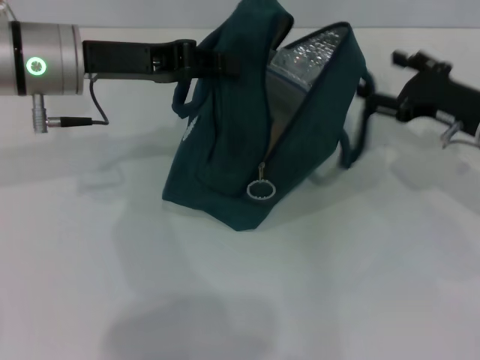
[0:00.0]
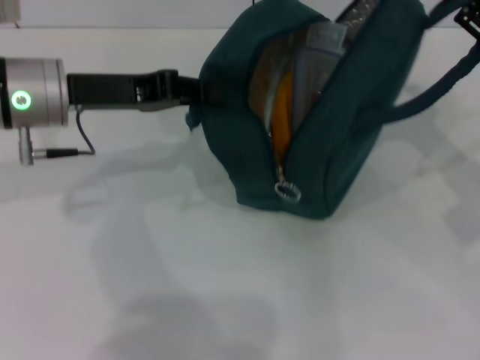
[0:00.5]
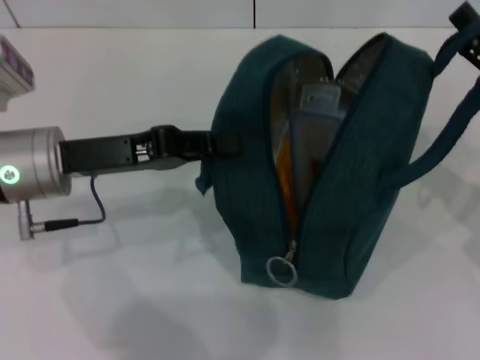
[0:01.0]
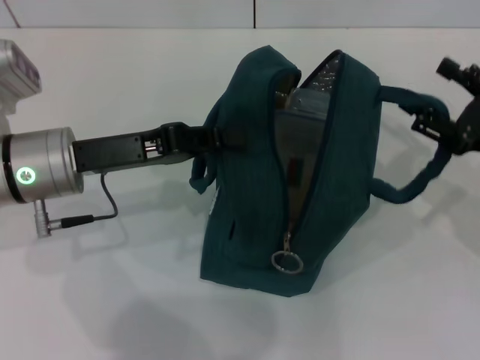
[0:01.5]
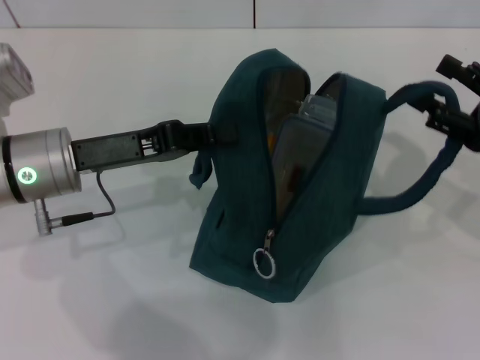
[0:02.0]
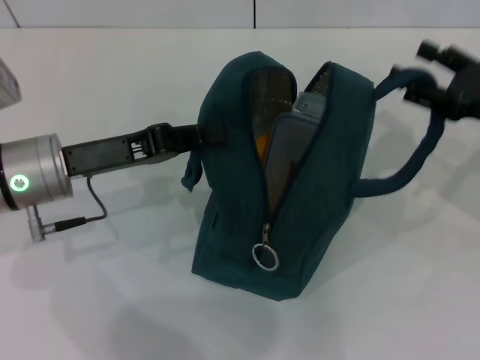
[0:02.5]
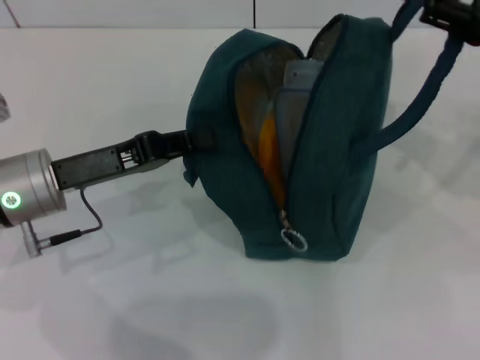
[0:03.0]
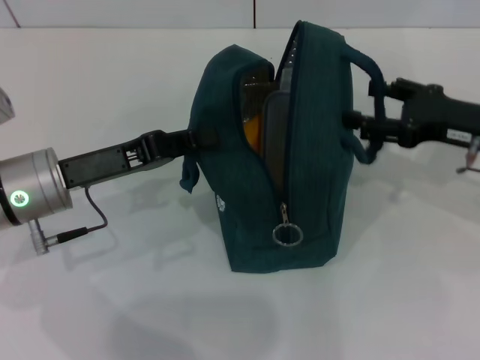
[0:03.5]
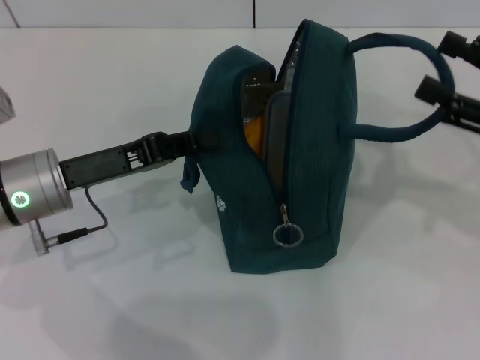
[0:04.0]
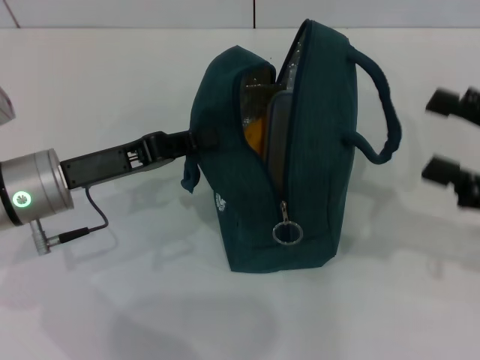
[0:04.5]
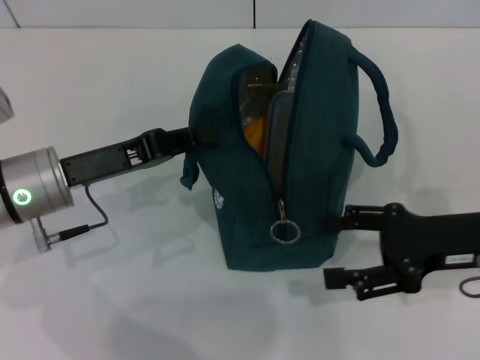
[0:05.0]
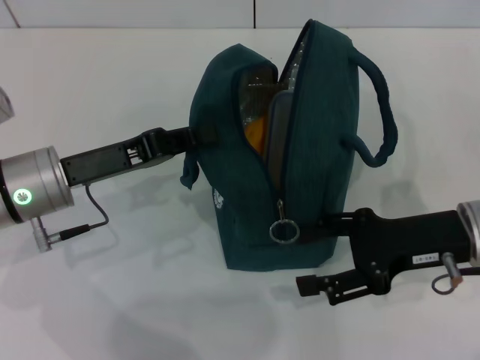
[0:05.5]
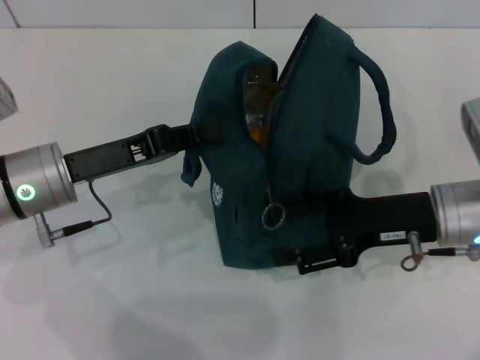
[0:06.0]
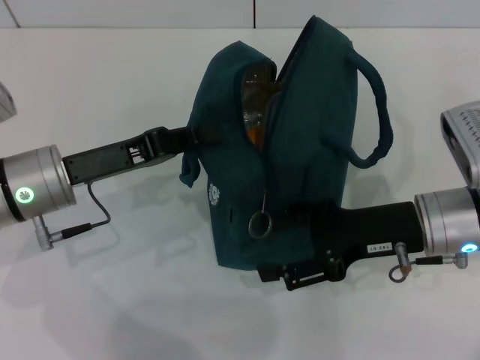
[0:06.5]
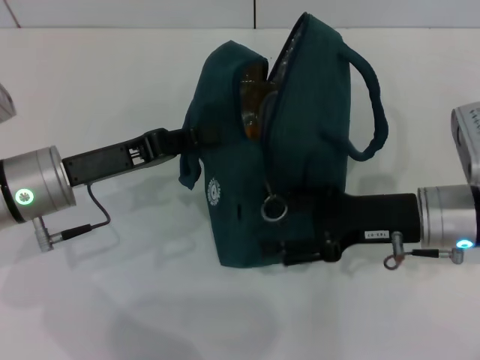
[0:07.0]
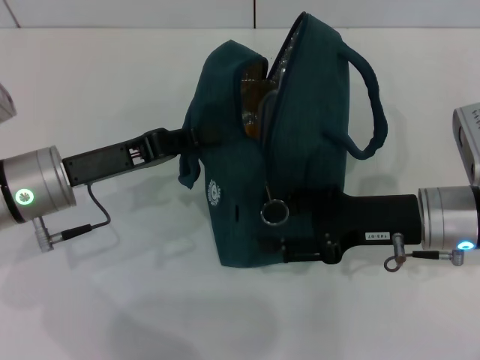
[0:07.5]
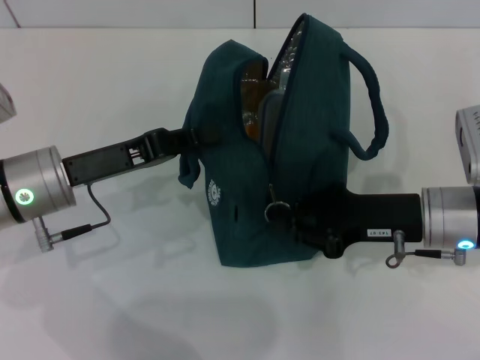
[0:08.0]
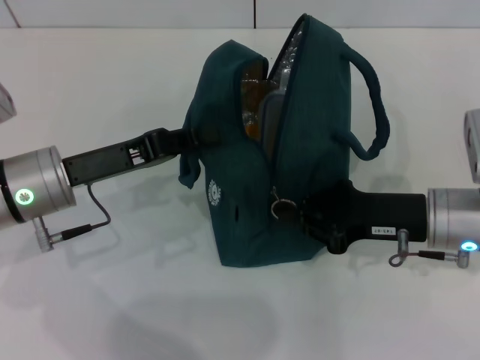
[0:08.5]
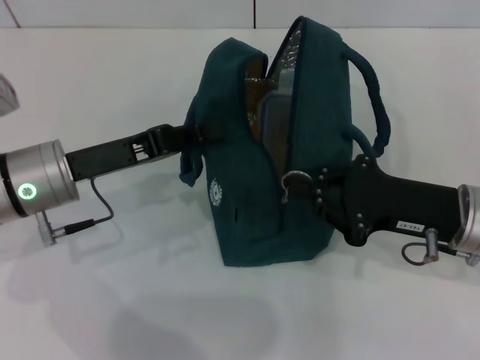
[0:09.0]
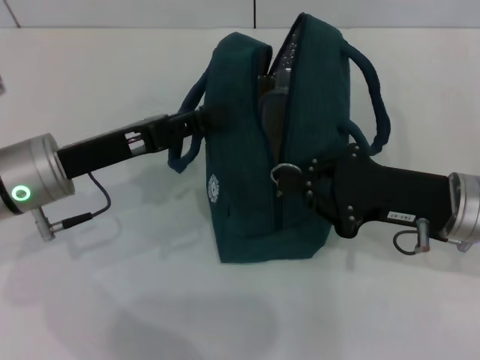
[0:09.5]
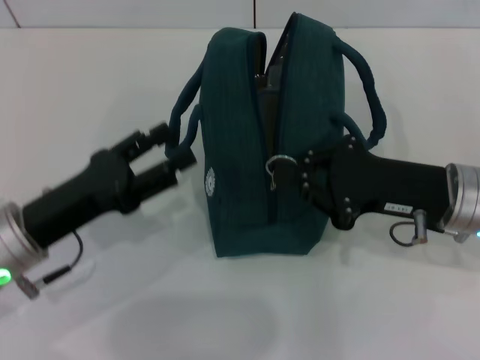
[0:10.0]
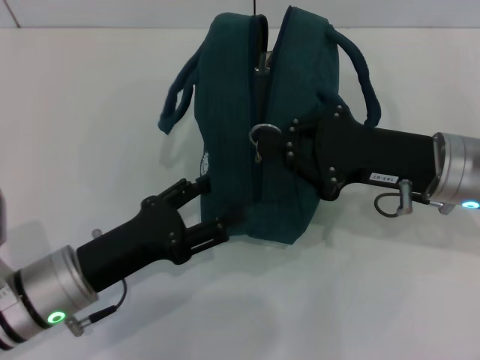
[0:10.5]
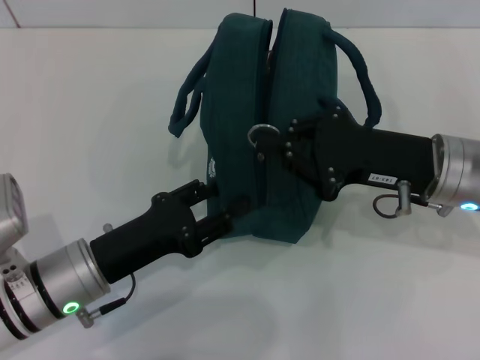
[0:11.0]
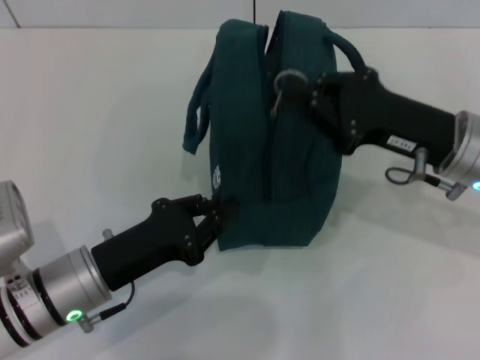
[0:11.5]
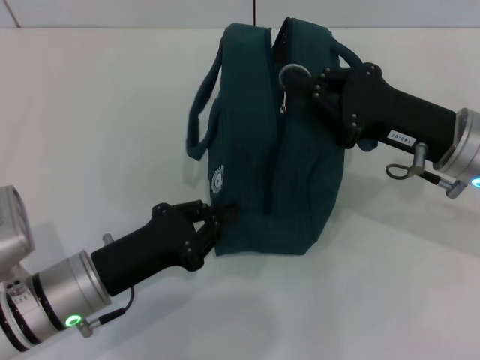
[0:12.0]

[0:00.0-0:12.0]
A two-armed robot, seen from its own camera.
Step, 0:00.0 to 0:03.5: Hold the lunch bag with your right hand.
0:00.0 to 0:02.0: The left gripper goes approximately 10 cm downward and backward; the right gripper goes about 10 cm backward.
0:04.0 to 0:06.0: The right gripper shifts roughly 10 cm to the left and downward.
0:06.0 to 0:08.0: The right gripper closes.
0:08.0 to 0:10.0: The right gripper closes up; the left gripper travels backward by roughly 5 cm, and opens its fingers.
0:10.0 to 0:12.0: The left gripper shifts by roughly 5 cm, and closes its fingers.

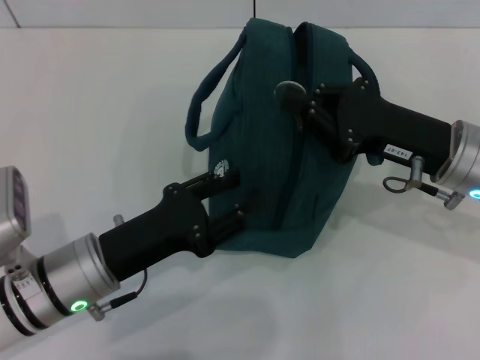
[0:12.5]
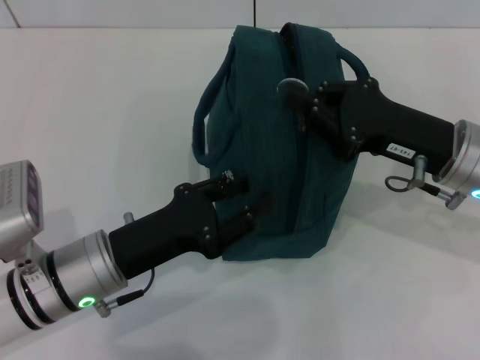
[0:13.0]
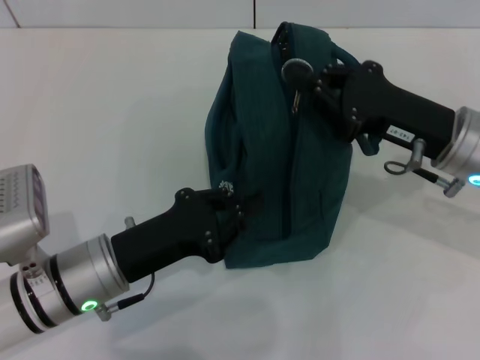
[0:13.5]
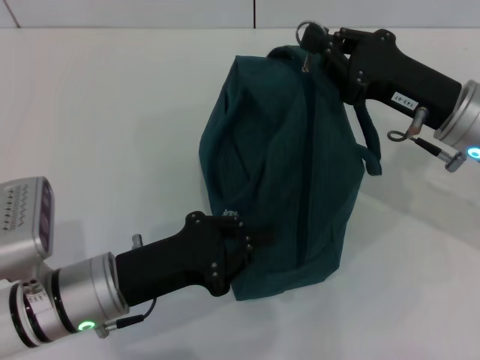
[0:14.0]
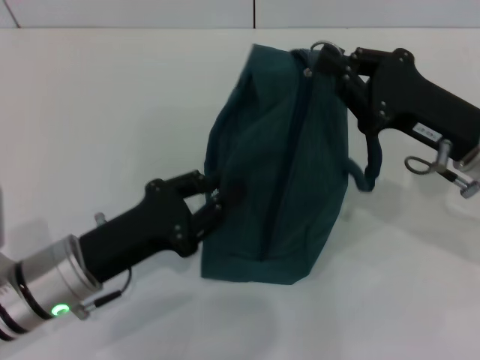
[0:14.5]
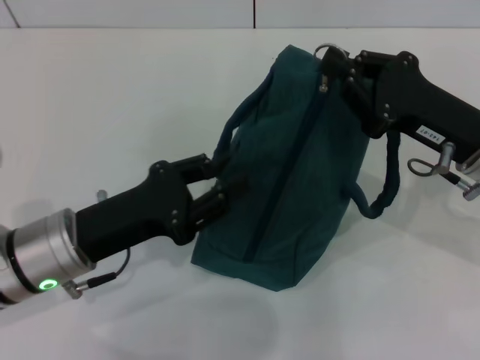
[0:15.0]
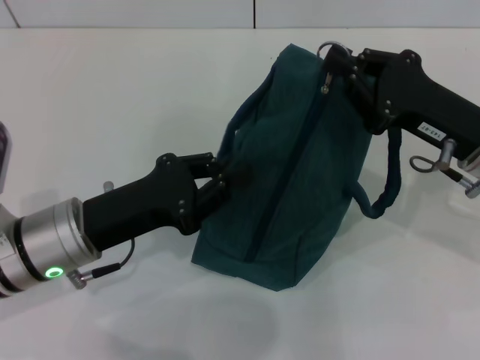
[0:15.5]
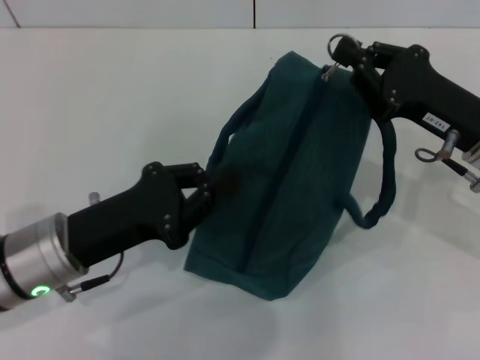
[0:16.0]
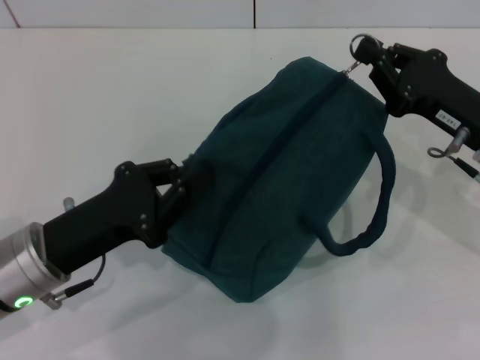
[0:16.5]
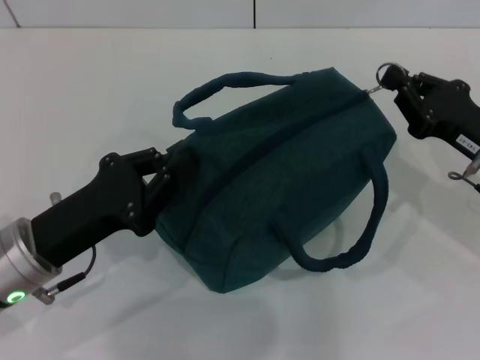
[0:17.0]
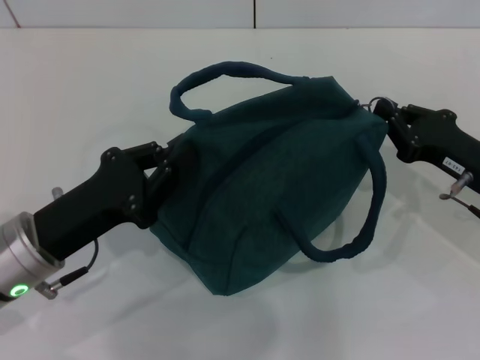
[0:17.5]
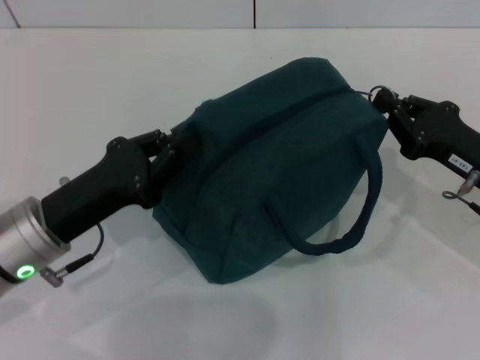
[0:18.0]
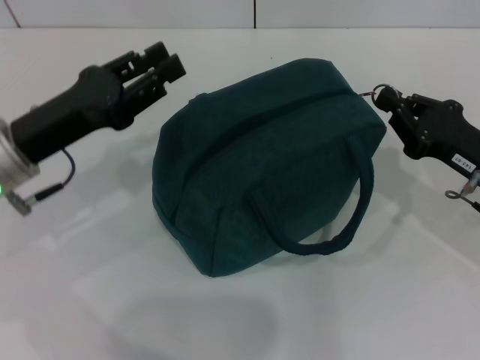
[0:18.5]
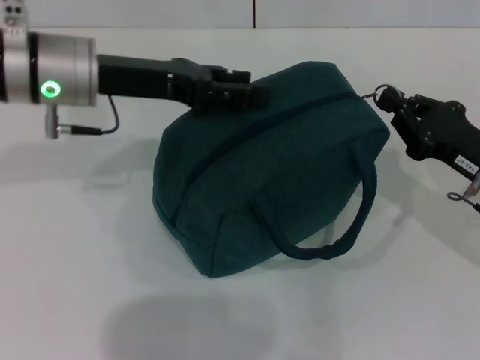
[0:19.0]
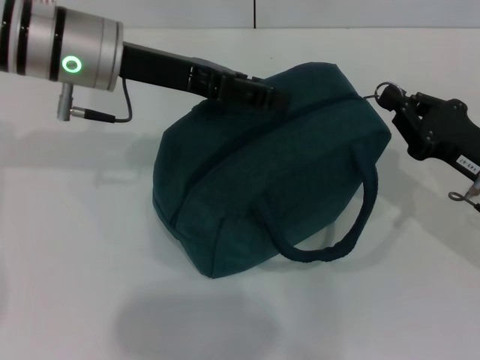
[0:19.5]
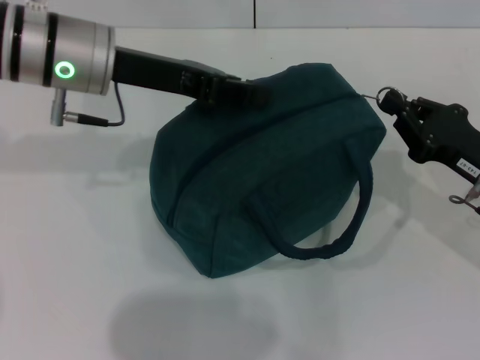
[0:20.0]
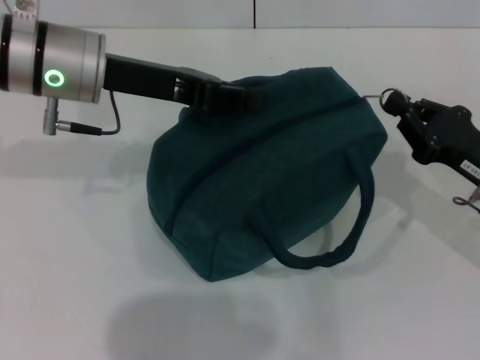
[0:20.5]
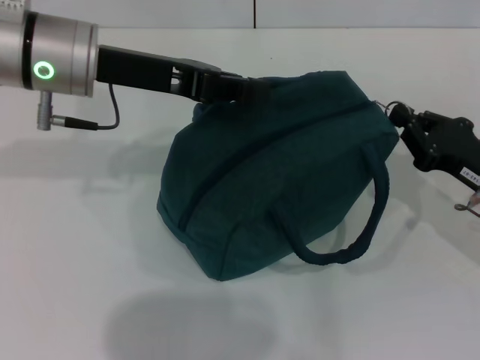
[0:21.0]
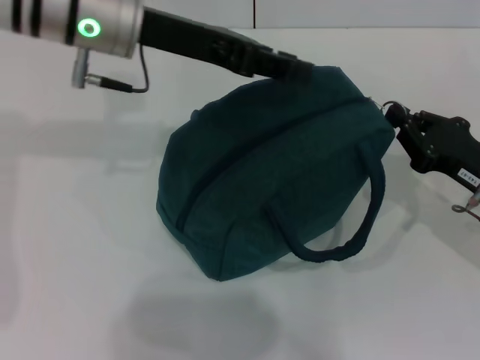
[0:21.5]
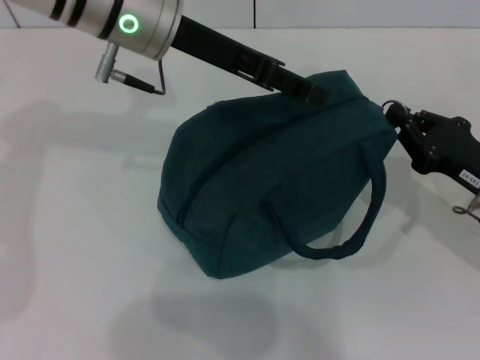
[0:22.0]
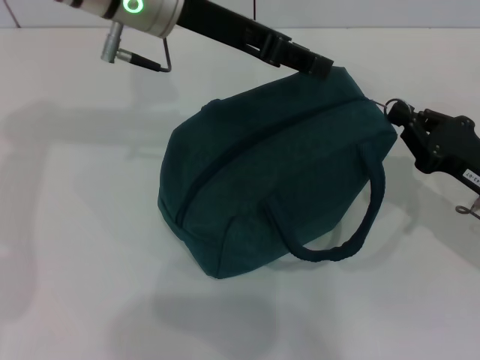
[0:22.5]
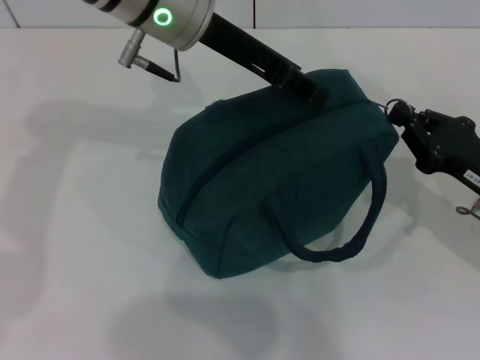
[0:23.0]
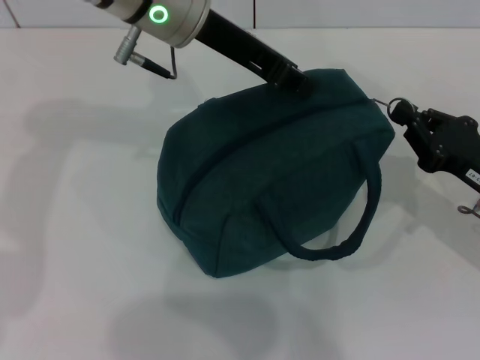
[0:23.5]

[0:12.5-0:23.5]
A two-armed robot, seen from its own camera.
0:14.5 to 0:16.0: The grippers make only small movements.
0:16.0 to 0:18.0: The right gripper moves about 5 cm.
0:18.0 to 0:20.0: The left gripper shifts about 20 cm forward and upward, and opens and closes again.
0:20.0 to 0:21.5: The grippers make only small movements.
0:21.5 to 0:23.5: The left gripper is displaced to the right by approximately 5 cm, and opens, then closes again.

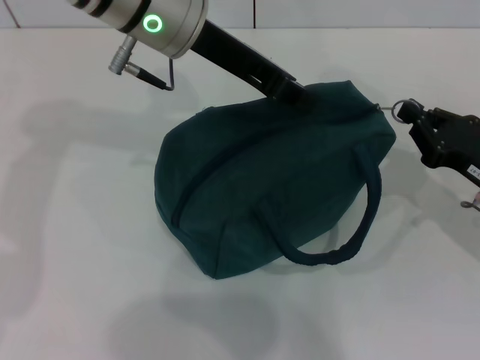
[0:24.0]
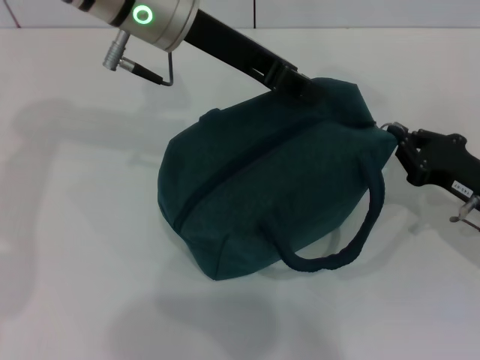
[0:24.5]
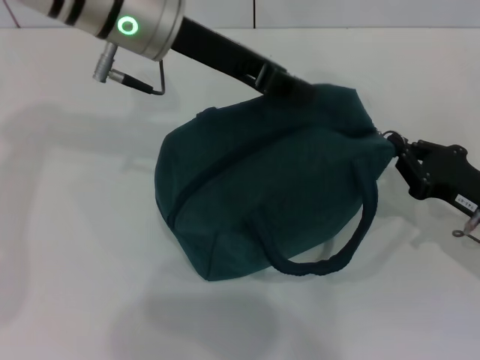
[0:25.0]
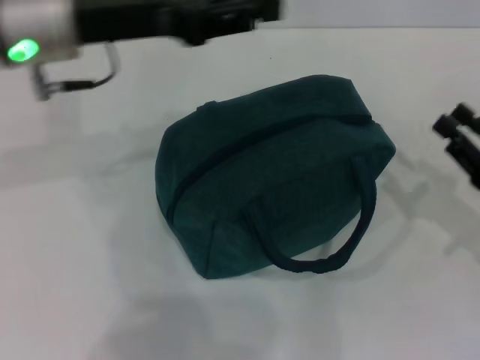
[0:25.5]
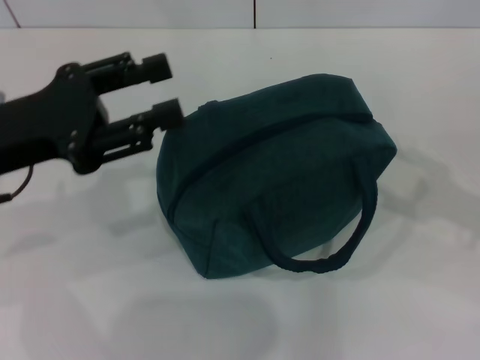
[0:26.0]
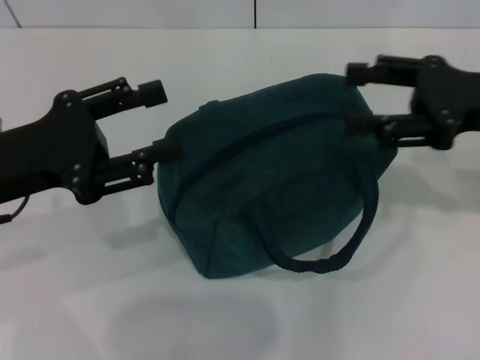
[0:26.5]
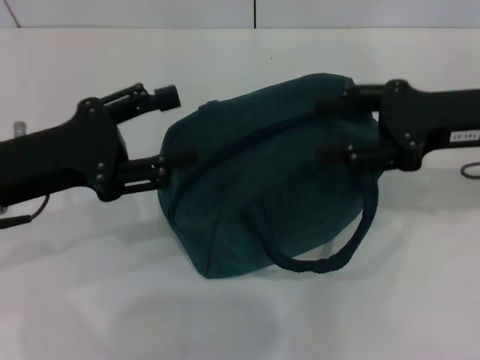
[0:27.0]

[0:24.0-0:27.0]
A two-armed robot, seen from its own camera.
0:24.0 to 0:25.5: The right gripper moves about 5 cm. Meanwhile the left gripper shifts about 10 cm to the left.
0:25.5 to 0:27.0: The left gripper is displaced backward, downward and to the left by roughly 15 cm, and opens its fingers, while the right gripper travels upward, forward and to the left by roughly 15 cm, and opens up.
